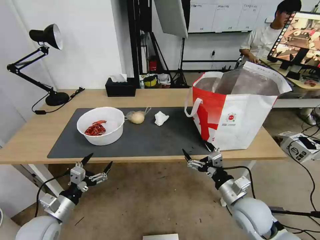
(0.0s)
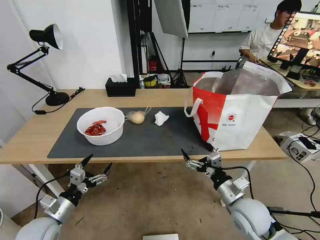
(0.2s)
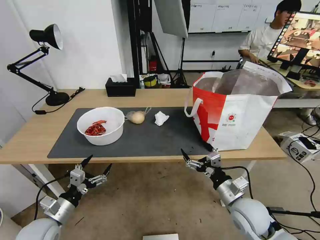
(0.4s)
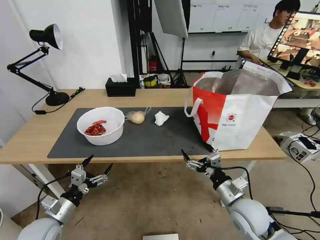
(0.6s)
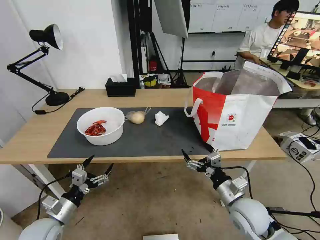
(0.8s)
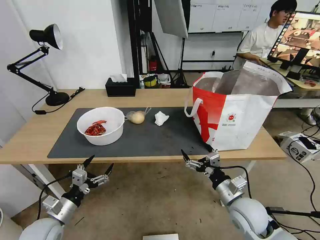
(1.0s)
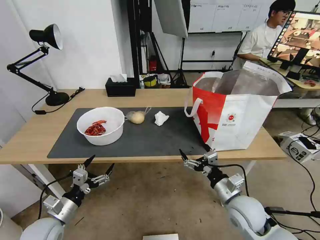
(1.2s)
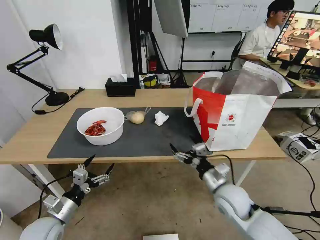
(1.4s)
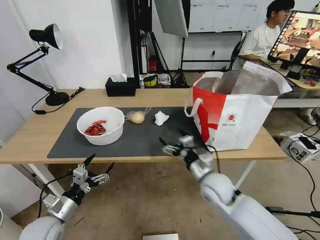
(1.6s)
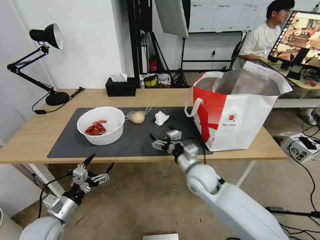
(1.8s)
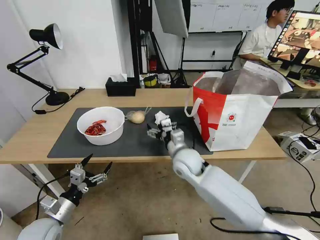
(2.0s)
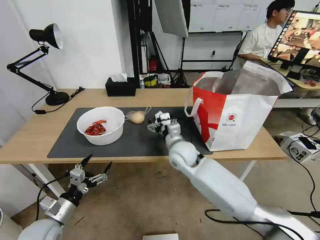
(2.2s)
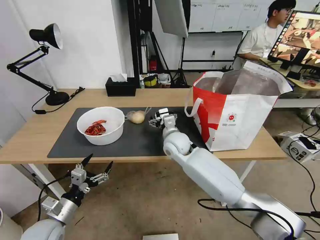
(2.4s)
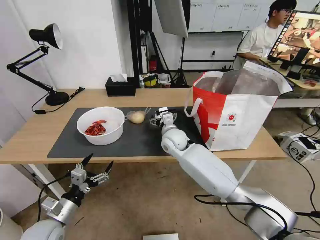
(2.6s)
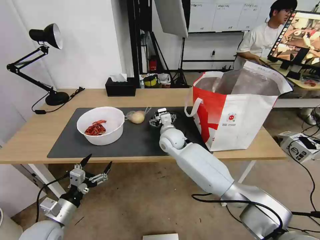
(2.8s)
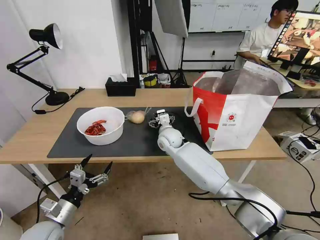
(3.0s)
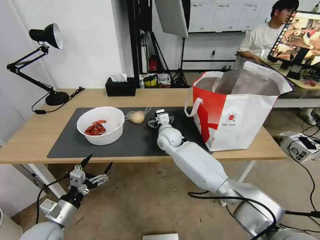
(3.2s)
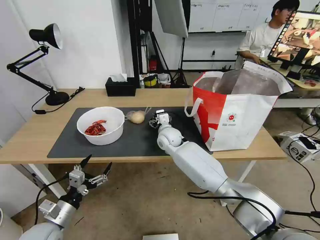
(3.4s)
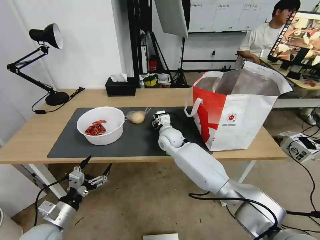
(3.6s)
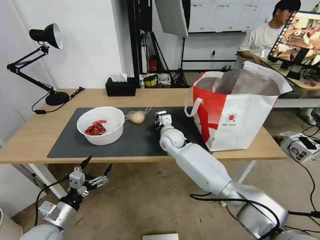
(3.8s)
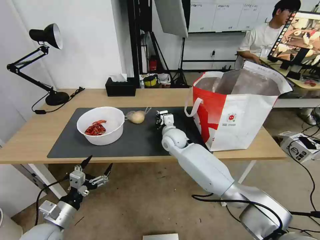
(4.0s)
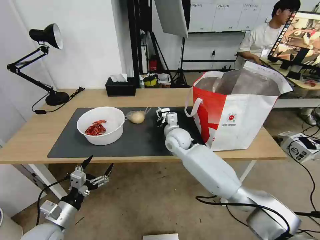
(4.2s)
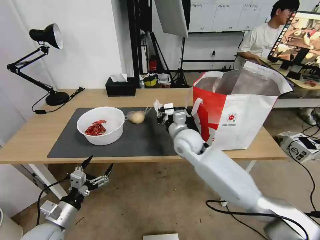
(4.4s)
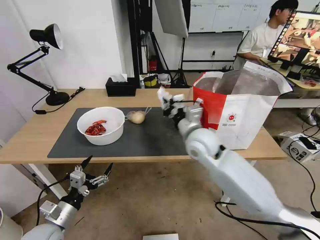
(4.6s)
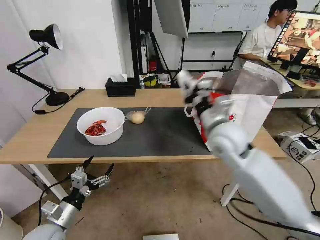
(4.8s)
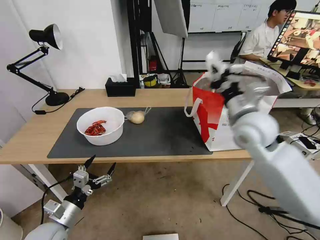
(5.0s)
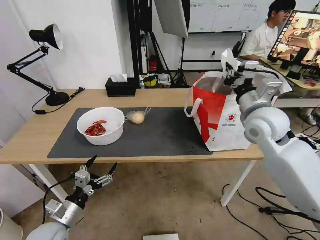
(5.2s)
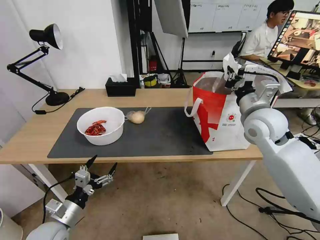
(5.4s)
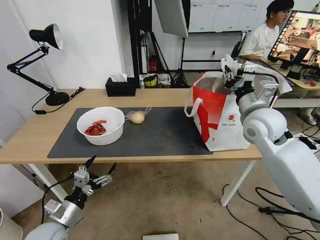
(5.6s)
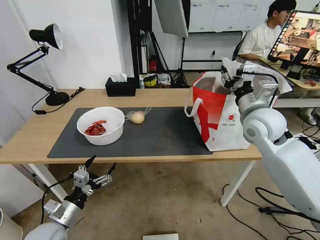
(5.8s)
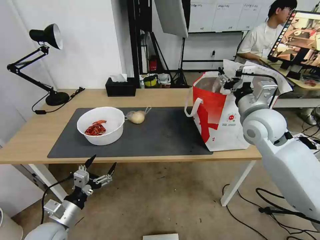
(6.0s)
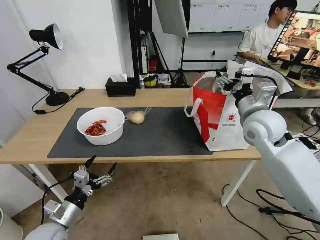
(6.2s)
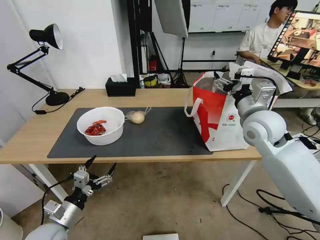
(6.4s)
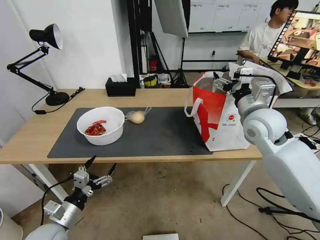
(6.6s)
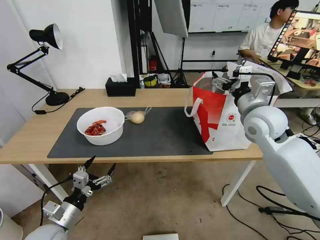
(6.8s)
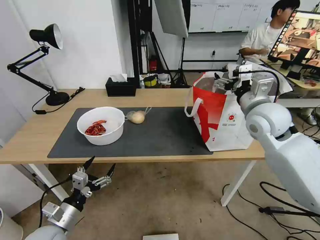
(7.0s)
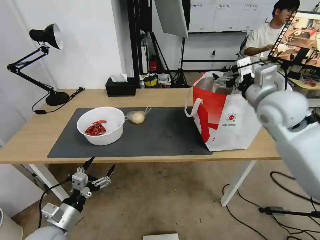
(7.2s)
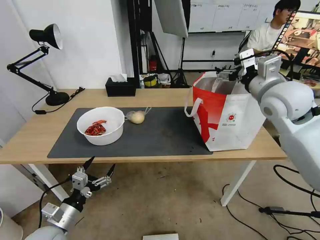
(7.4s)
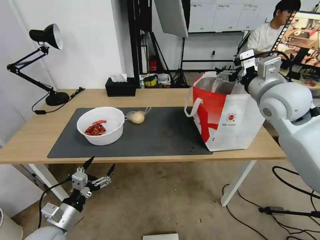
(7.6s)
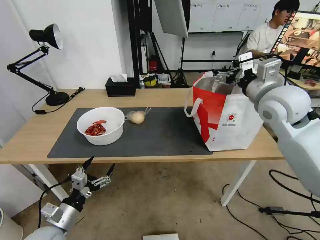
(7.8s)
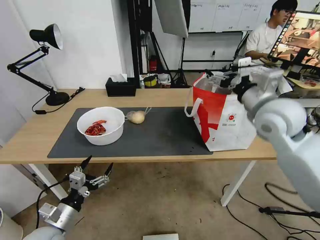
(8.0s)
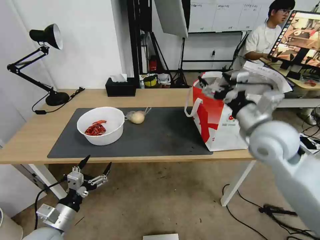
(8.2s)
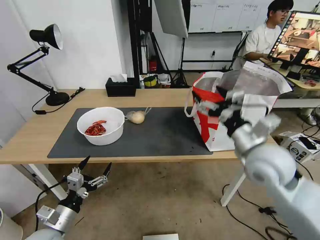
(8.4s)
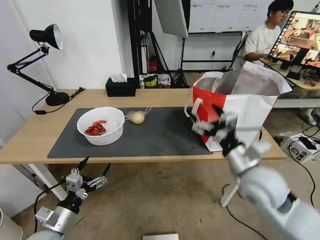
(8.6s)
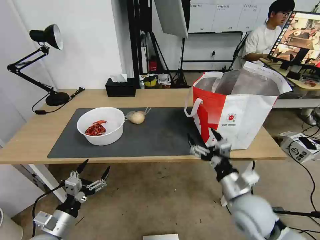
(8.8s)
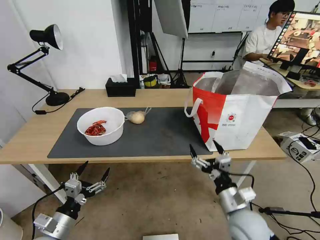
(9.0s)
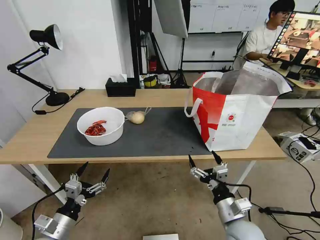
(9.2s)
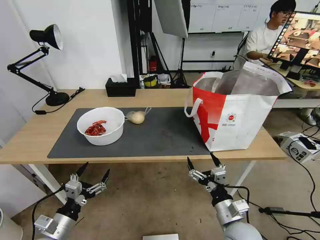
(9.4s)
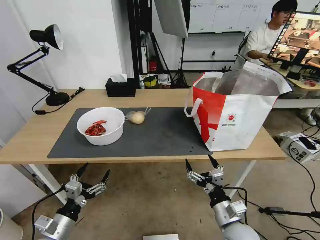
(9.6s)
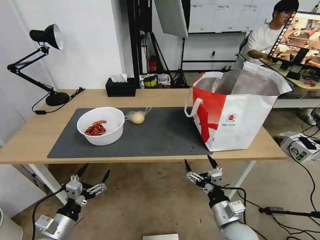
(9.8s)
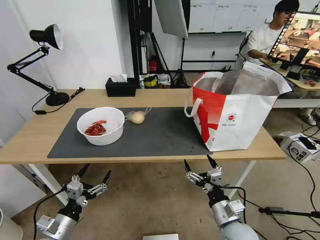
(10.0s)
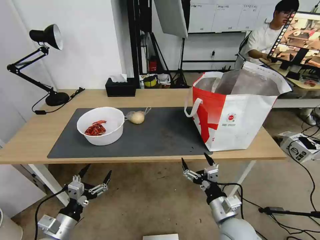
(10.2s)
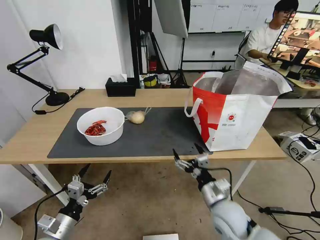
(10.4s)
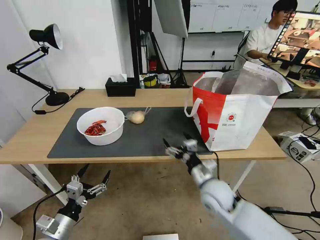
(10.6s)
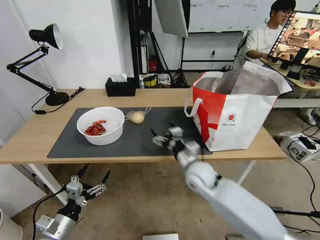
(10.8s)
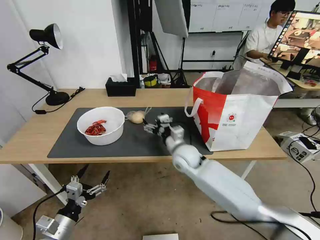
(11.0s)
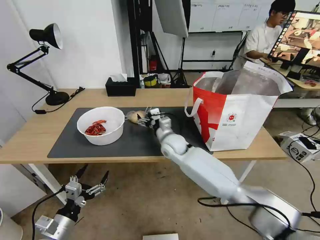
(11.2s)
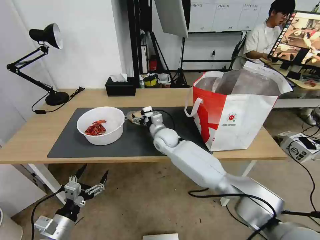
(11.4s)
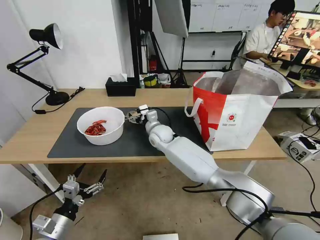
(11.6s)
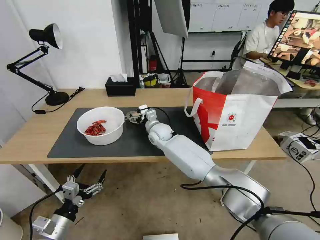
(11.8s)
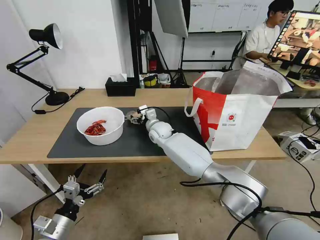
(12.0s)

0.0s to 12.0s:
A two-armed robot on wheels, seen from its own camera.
Task of the whole recording: Pick up the trash from the table and place it into the takeout bag.
0.0s to 1.6s: The right gripper goes about 10 cm to the left and forward.
1.6s to 3.0s: The right gripper travels forward and to the left by some 25 cm.
3.0s to 4.4s: The right gripper heads backward, upward and to the right, covering some 10 cm, and closes up.
4.4s to 6.0s: The right gripper heads to the right and upward, covering roughly 20 cm, and opens up.
6.0s to 7.6s: The right gripper moves upward, roughly 5 cm.
7.6s to 9.0s: The right gripper is displaced downward and backward by roughly 35 cm.
9.0s to 10.4s: The right gripper changes place by approximately 5 cm.
10.4s to 12.0s: The right gripper travels forward and to the left by some 35 cm.

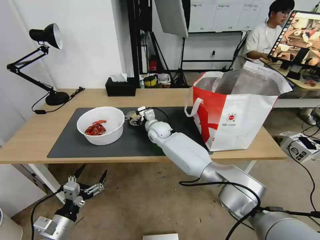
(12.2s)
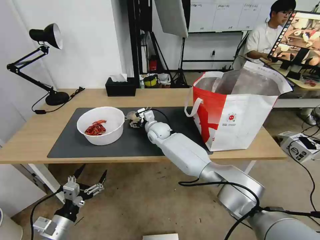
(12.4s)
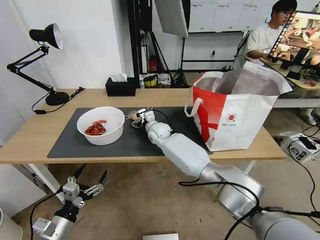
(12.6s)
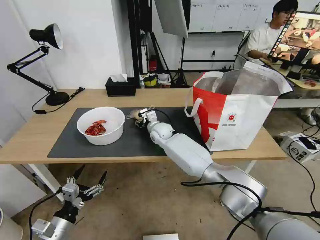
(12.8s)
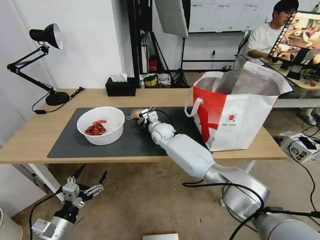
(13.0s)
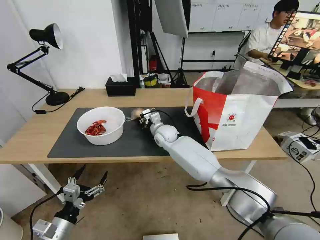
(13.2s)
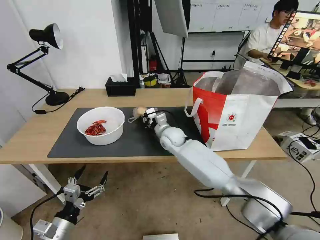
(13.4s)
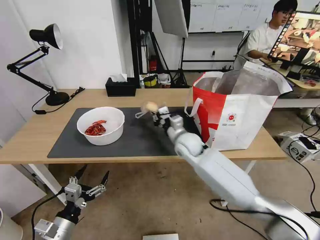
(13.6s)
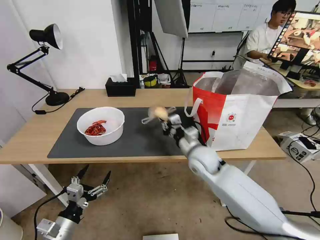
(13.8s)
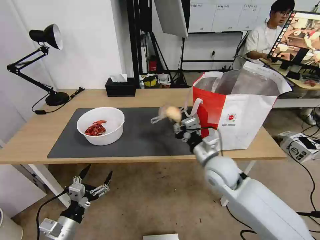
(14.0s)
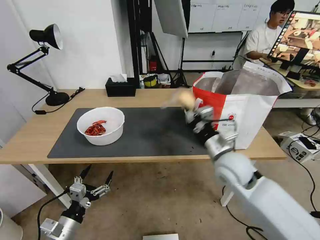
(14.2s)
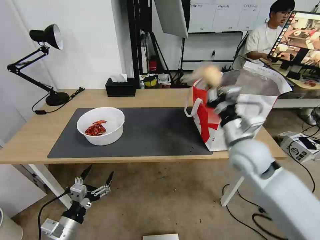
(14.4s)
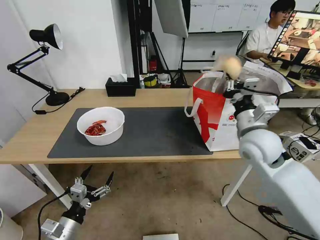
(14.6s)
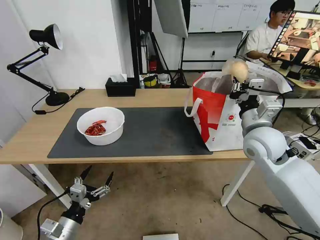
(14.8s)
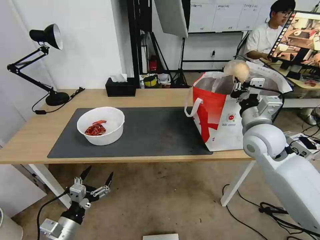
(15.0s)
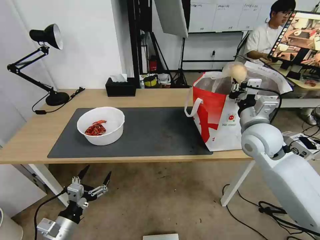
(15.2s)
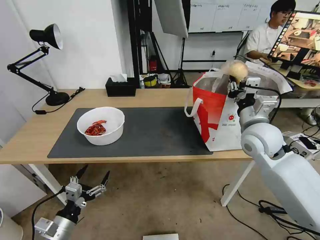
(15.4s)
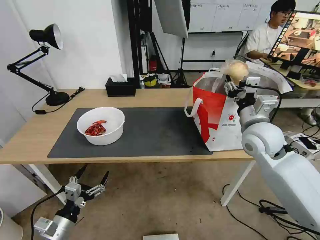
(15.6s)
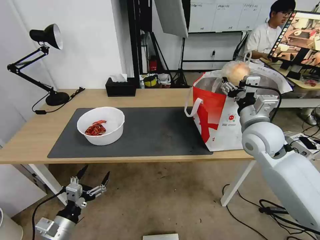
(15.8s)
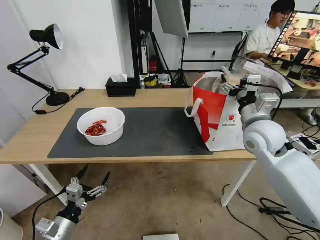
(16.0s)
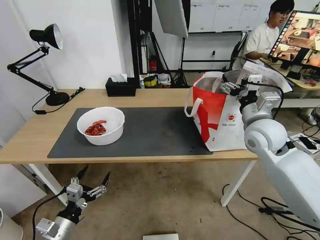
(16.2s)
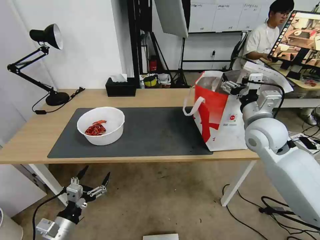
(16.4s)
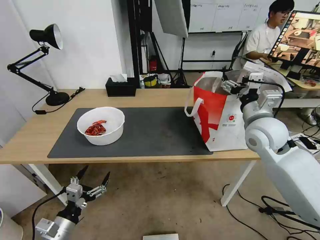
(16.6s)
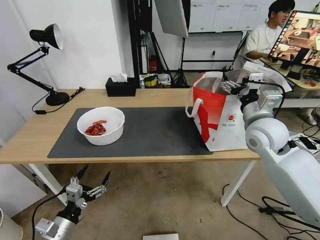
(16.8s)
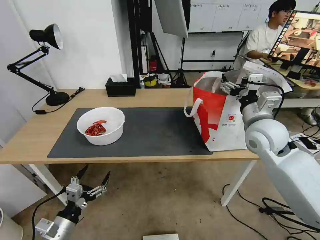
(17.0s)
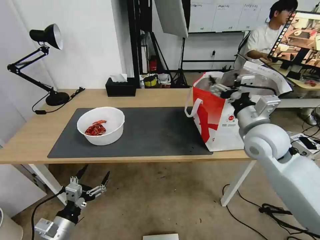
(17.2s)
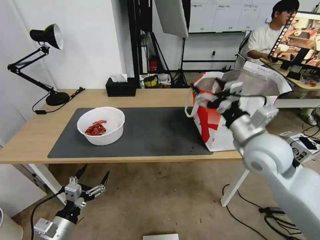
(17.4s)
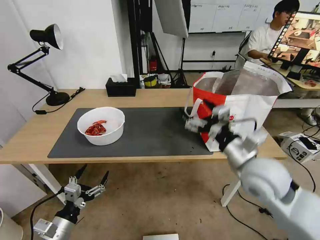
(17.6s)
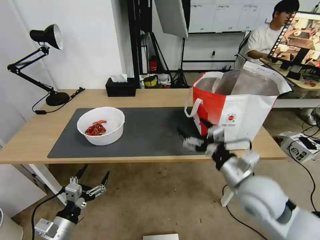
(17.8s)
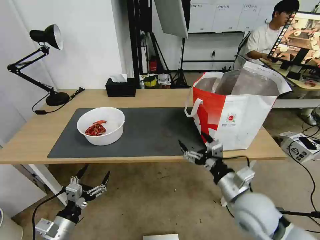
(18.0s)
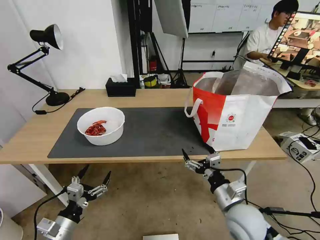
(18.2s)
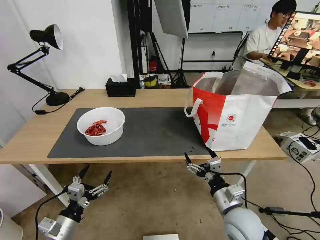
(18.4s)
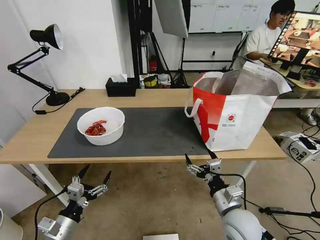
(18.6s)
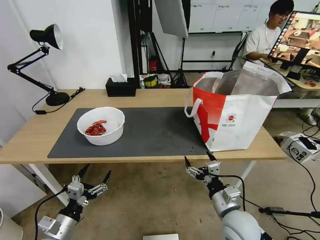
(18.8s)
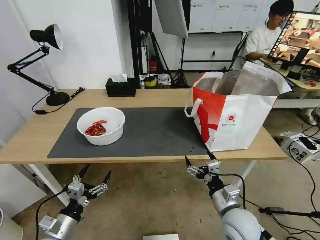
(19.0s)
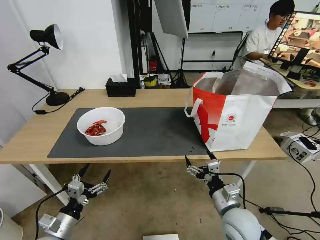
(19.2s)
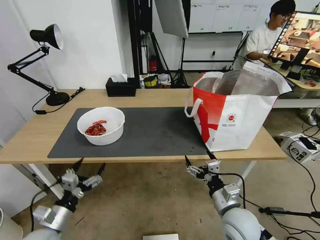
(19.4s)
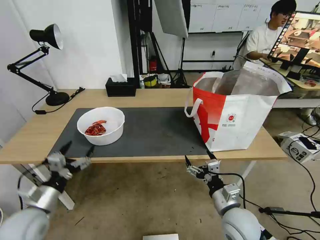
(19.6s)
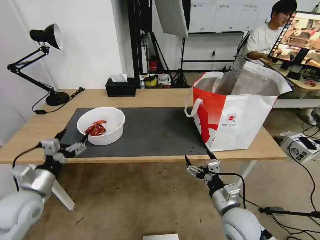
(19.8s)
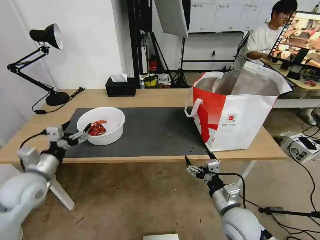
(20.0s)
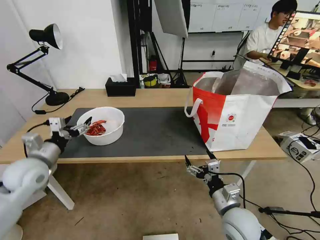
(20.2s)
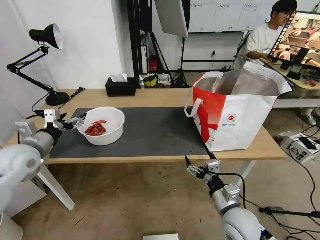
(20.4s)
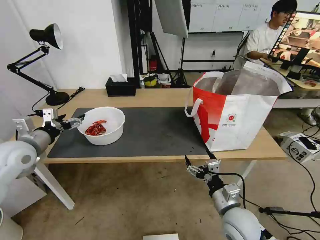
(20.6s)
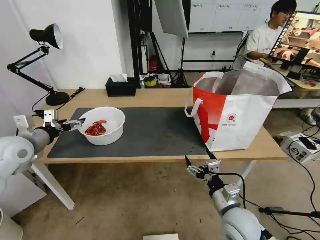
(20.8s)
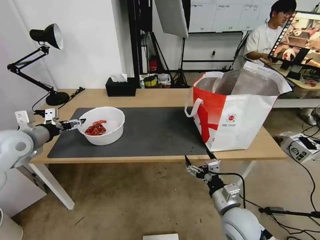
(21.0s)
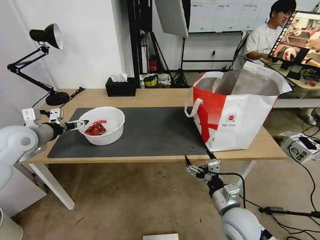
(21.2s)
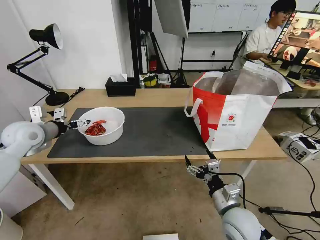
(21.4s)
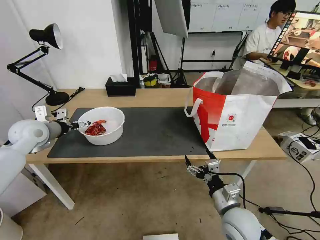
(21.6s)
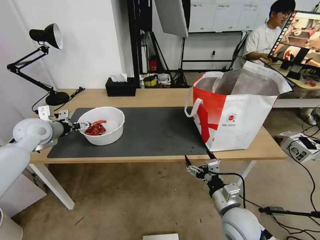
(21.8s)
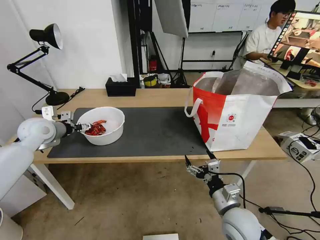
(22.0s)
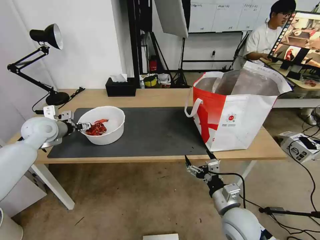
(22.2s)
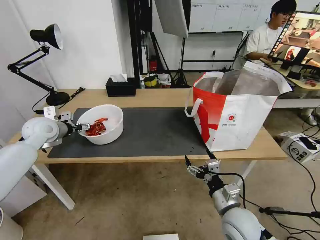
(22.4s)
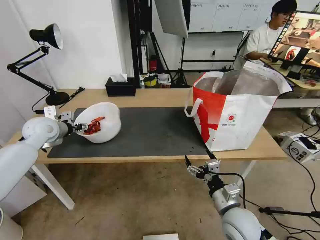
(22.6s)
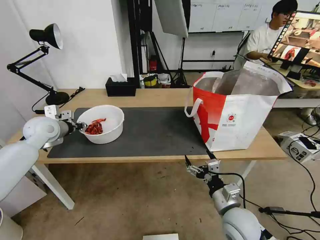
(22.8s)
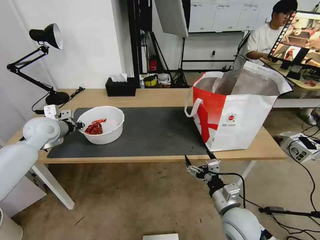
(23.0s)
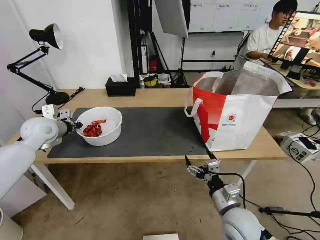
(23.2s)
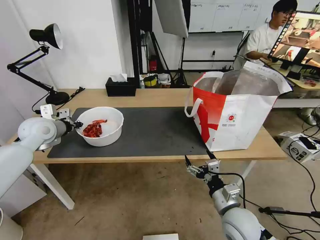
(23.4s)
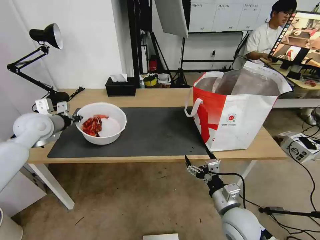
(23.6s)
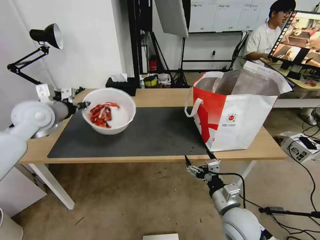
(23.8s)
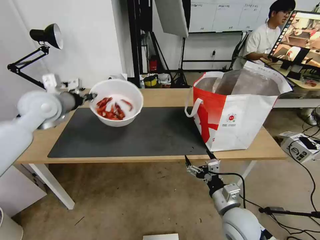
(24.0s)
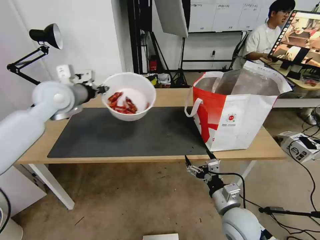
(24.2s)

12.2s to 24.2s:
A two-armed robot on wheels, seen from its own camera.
Task of the whole recording: Pick up the trash from the table and place it into the takeout bag.
12.2s to 13.8s: The right gripper goes about 20 cm backward and to the right, and closes its fingers.
13.8s to 15.2s: The right gripper is displaced to the right and upward by approximately 20 cm.
15.2s to 16.6s: The right gripper opens its fingers.
16.6s to 18.2s: The right gripper is displaced backward and downward by roughly 25 cm.
18.2s to 19.8s: The left gripper goes some 15 cm upward, forward and to the left.
19.8s to 21.2s: The left gripper heads forward and upward, covering roughly 20 cm.
21.2s to 22.6s: The left gripper shifts about 5 cm forward, and closes up.
22.6s to 24.2s: The left gripper moves upward and to the right, some 15 cm, and closes.
